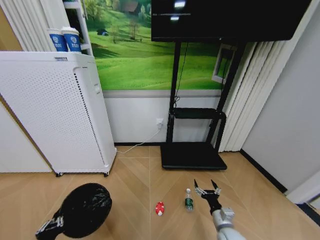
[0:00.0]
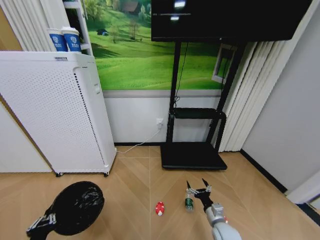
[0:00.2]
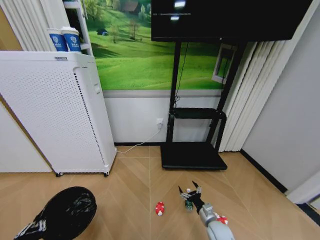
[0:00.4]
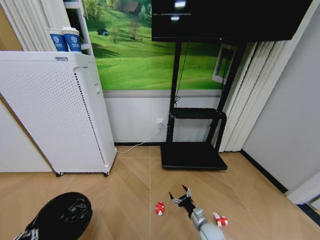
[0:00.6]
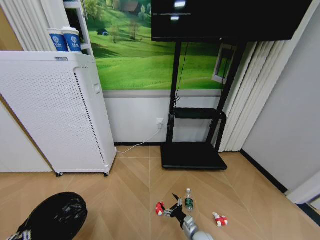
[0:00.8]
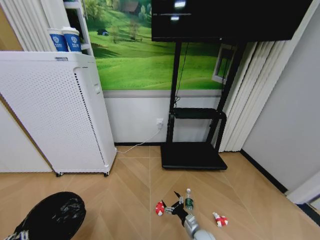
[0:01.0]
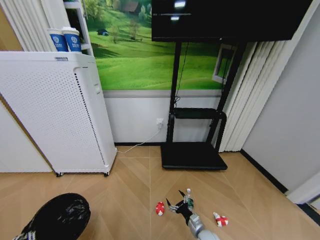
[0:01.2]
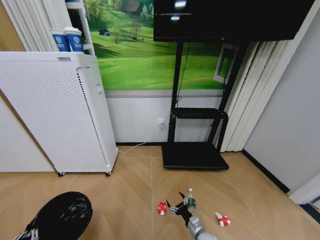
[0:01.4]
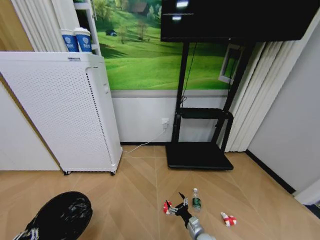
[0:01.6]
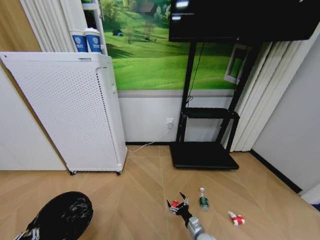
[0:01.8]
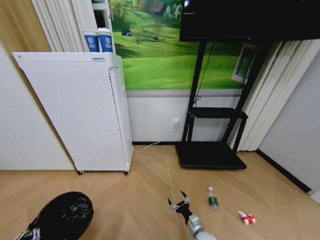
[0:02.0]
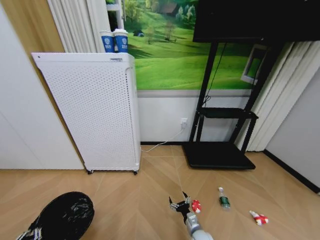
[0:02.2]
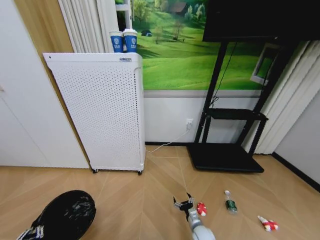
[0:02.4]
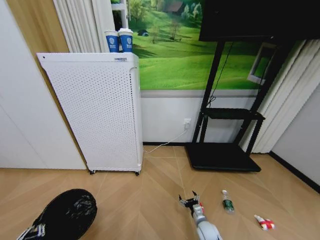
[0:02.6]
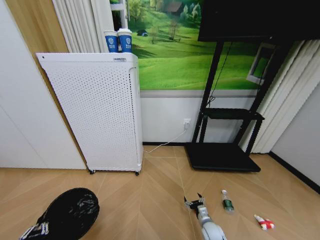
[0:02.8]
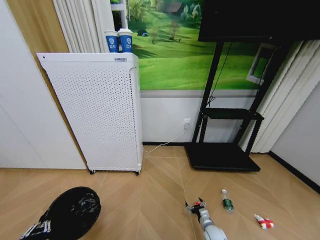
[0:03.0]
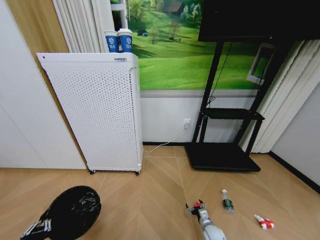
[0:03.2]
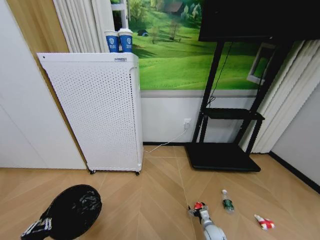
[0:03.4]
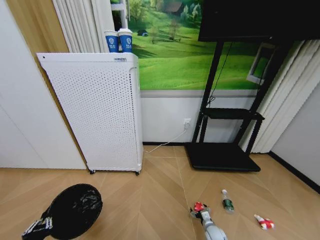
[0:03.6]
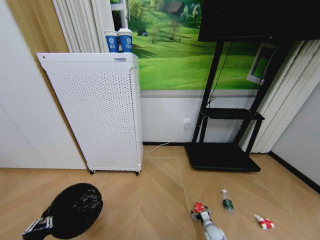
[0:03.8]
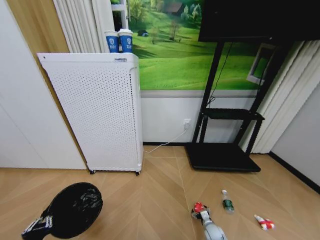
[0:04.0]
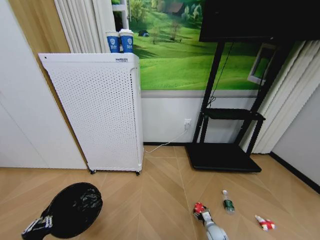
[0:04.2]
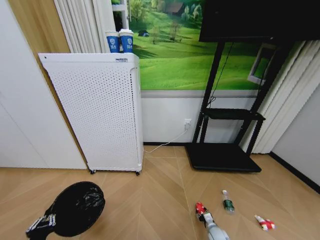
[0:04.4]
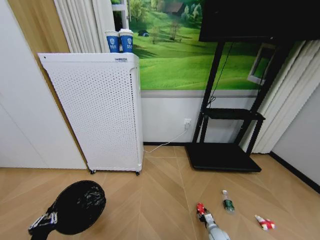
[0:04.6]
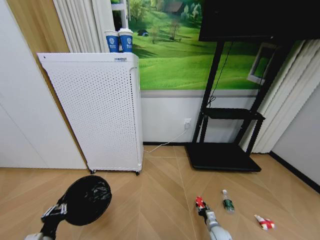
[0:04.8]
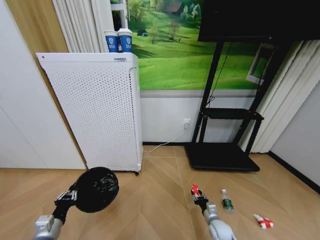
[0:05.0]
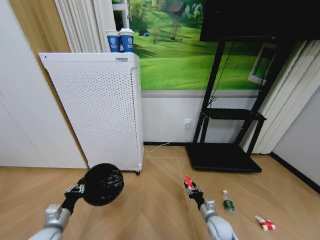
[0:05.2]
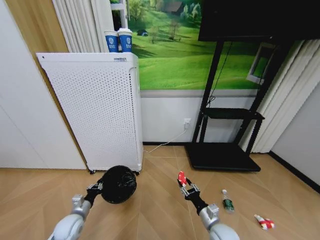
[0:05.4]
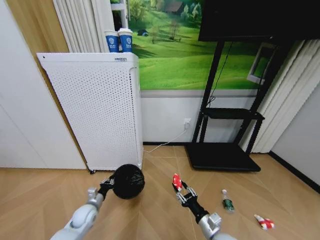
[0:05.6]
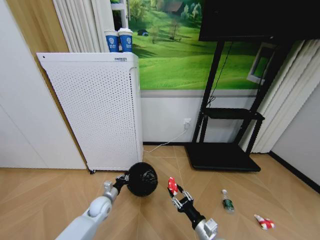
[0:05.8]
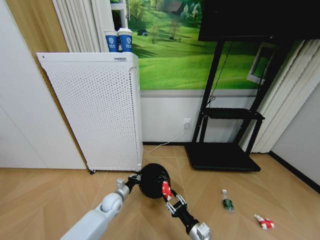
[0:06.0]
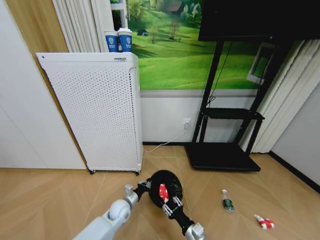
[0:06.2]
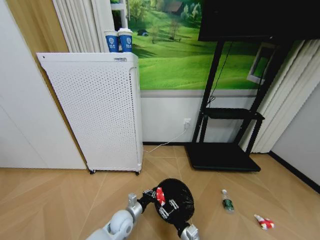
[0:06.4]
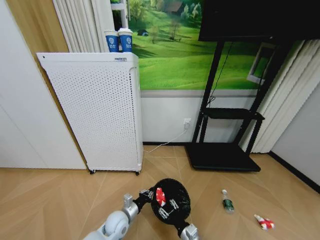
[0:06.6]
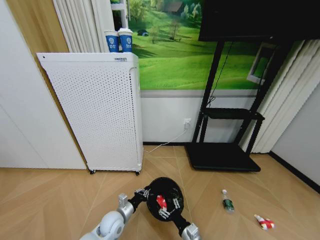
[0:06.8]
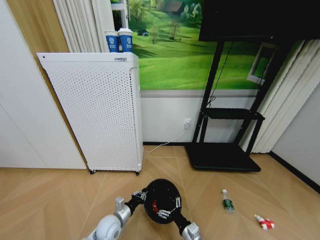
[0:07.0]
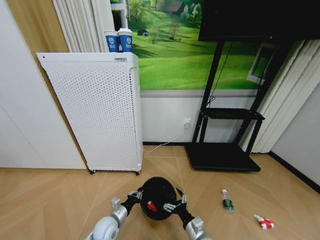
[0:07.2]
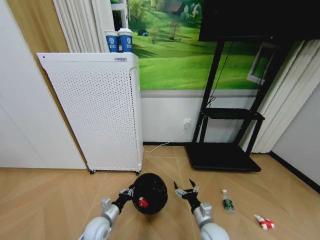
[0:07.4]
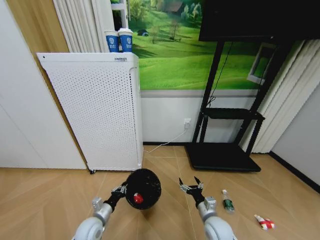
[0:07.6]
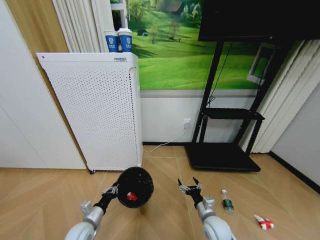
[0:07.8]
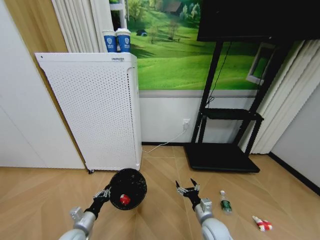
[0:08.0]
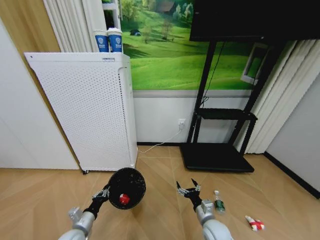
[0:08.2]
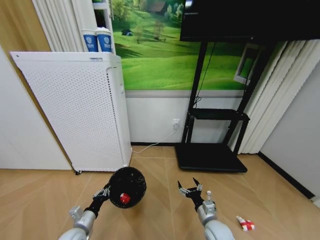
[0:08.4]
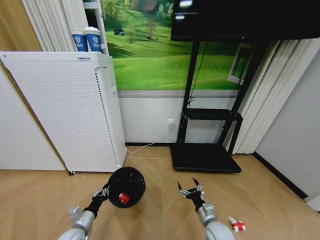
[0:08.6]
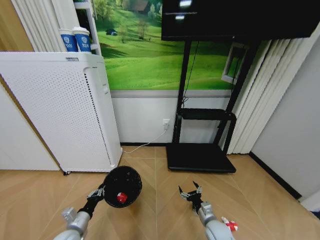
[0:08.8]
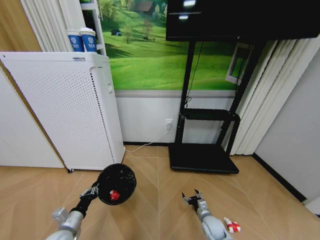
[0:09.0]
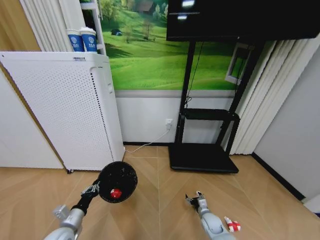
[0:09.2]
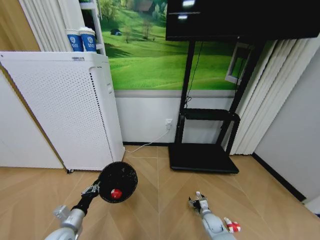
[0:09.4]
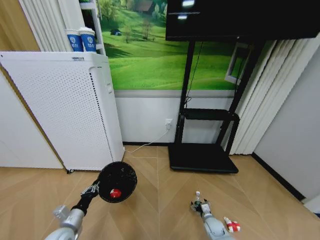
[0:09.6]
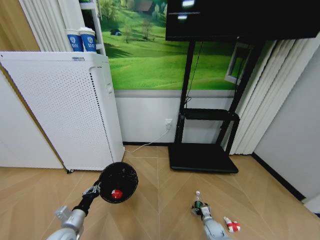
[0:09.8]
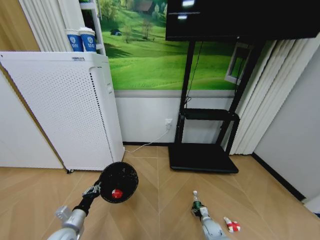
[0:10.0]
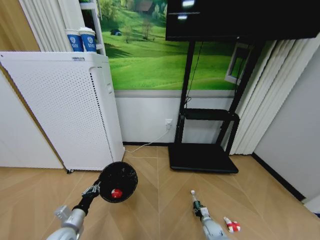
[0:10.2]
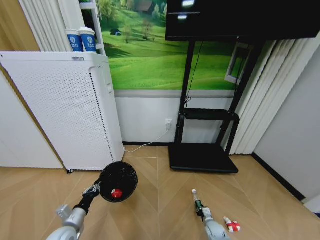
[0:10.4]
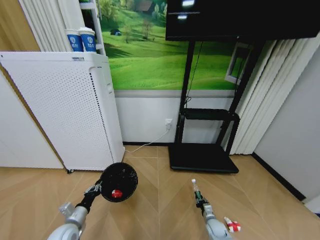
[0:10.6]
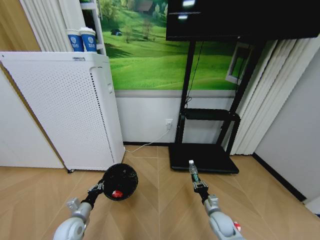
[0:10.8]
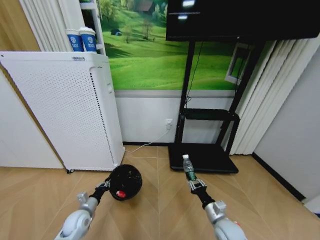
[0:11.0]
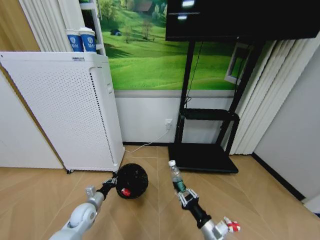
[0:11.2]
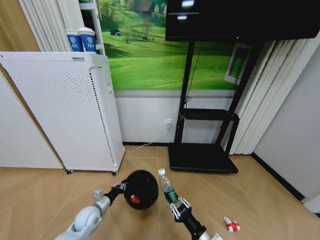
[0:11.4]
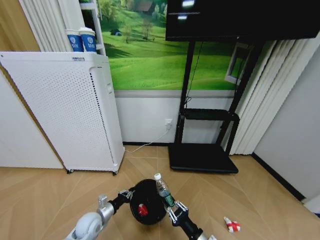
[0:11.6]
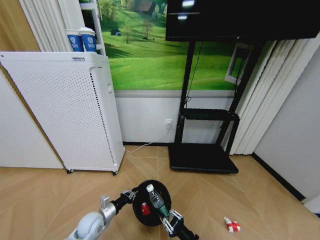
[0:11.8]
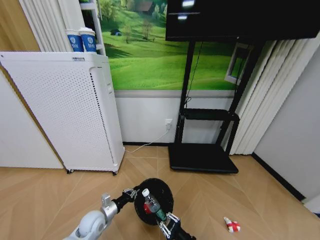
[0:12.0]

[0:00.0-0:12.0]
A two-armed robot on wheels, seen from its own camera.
Task of the whole recording: Pick up the trash bin and place the garbage on the floor into it.
0:00.0 to 0:01.6: The right gripper moves downward and to the left, approximately 10 cm. Meanwhile the left gripper moves to the left, about 5 cm.
0:01.6 to 0:03.0: The right gripper is displaced to the right by about 5 cm.
0:03.0 to 0:04.4: The right gripper travels downward by roughly 5 cm, and closes.
0:04.4 to 0:06.0: The right gripper travels upward, to the left and backward by approximately 25 cm, while the left gripper moves forward and to the right, some 35 cm.
0:06.0 to 0:07.6: The left gripper moves backward and to the left, some 15 cm, while the right gripper shifts about 10 cm forward, and opens.
0:07.6 to 0:09.0: The right gripper travels downward by roughly 10 cm. Meanwhile the left gripper heads to the left, covering about 10 cm.
0:09.0 to 0:10.4: The right gripper is displaced downward and to the right by approximately 10 cm, and closes up.
0:10.4 to 0:12.0: The left gripper goes some 10 cm to the right and forward. The right gripper shifts about 25 cm upward, backward and to the left.

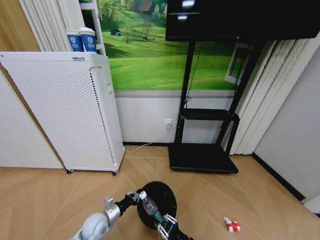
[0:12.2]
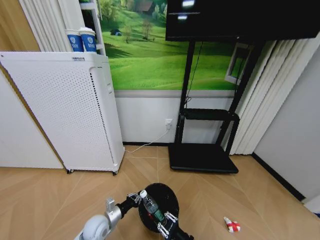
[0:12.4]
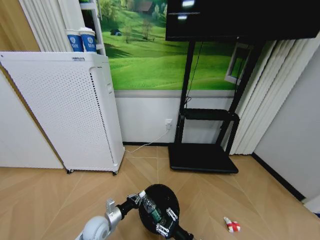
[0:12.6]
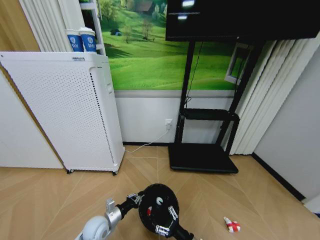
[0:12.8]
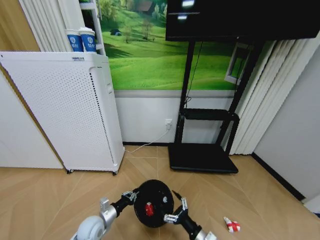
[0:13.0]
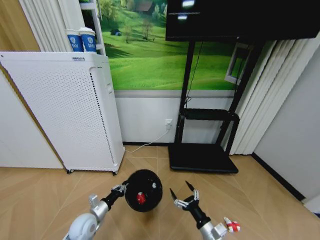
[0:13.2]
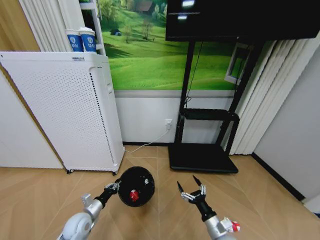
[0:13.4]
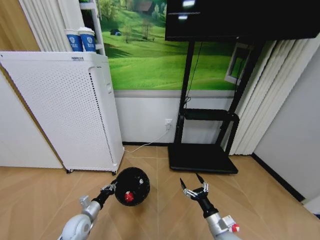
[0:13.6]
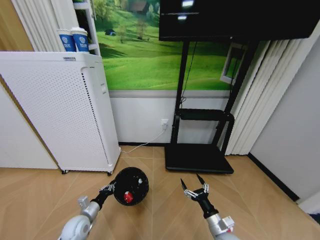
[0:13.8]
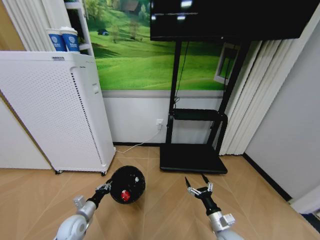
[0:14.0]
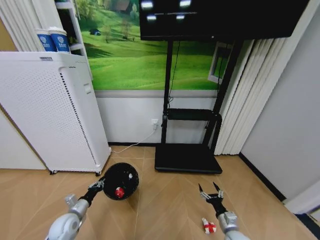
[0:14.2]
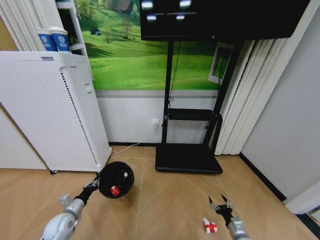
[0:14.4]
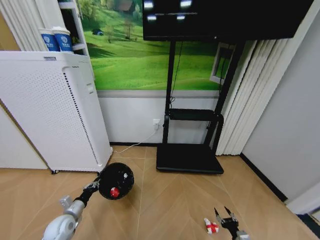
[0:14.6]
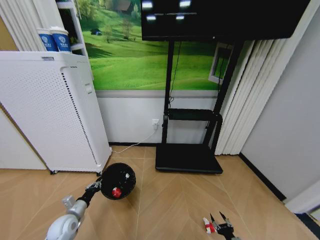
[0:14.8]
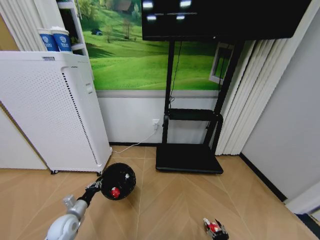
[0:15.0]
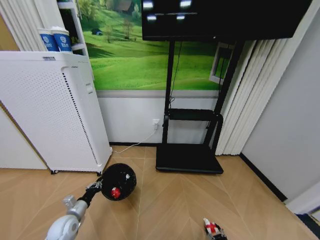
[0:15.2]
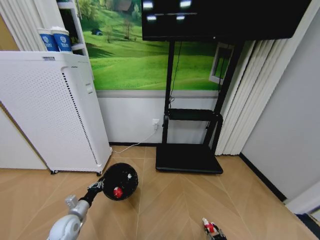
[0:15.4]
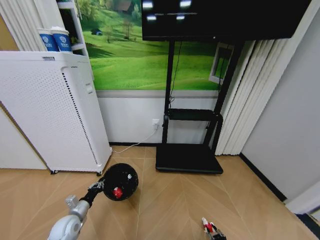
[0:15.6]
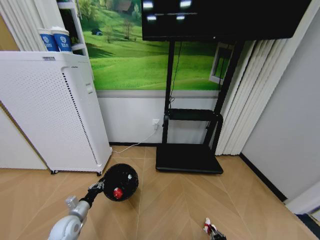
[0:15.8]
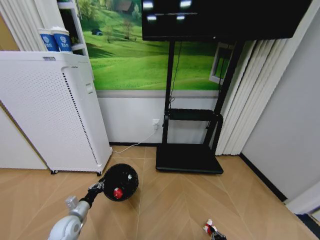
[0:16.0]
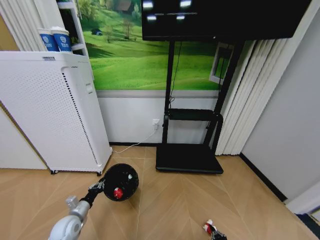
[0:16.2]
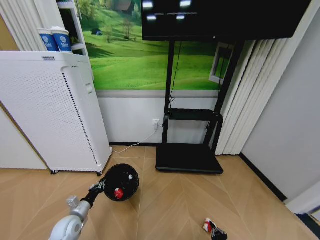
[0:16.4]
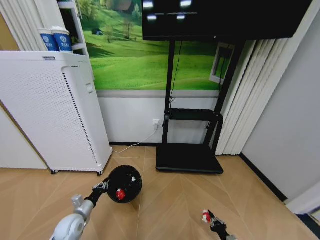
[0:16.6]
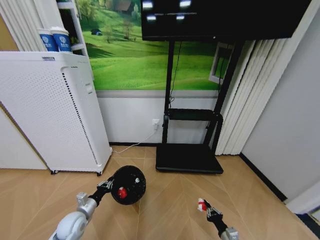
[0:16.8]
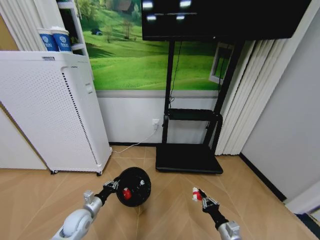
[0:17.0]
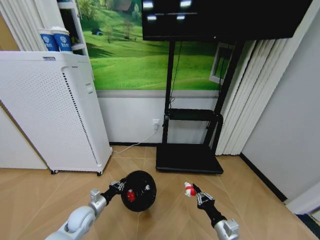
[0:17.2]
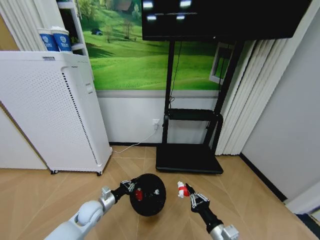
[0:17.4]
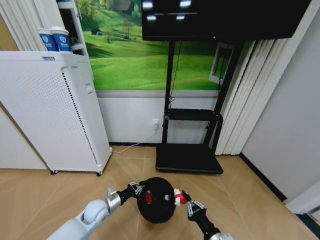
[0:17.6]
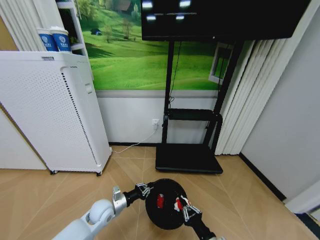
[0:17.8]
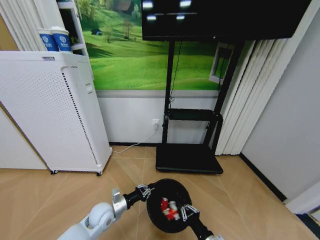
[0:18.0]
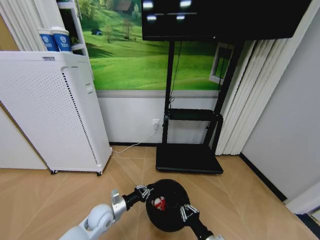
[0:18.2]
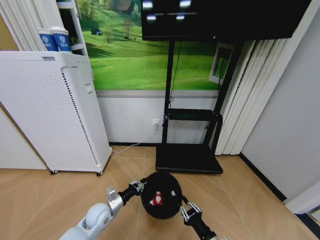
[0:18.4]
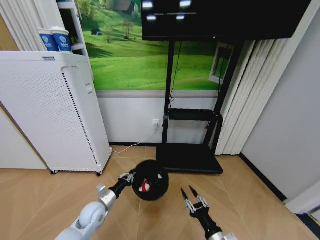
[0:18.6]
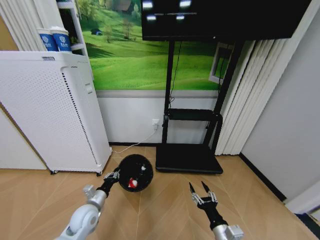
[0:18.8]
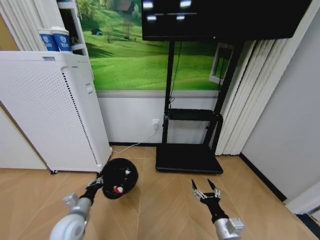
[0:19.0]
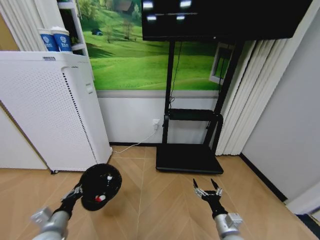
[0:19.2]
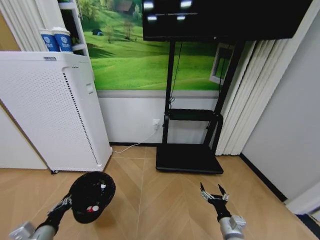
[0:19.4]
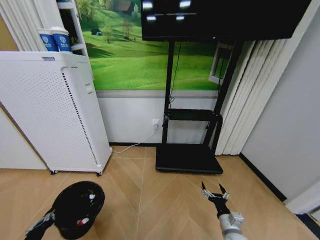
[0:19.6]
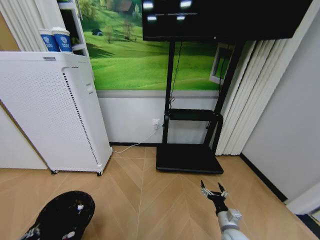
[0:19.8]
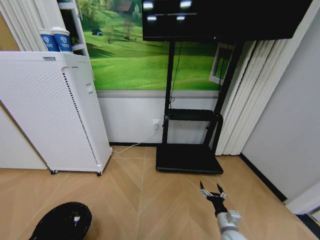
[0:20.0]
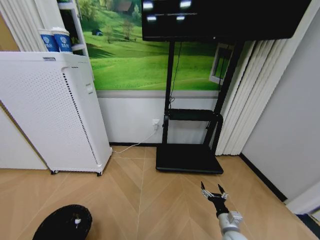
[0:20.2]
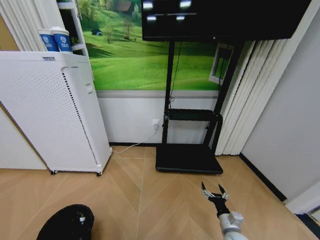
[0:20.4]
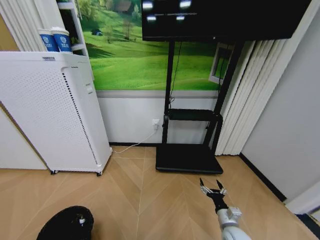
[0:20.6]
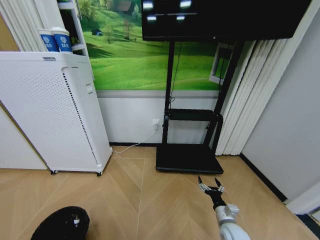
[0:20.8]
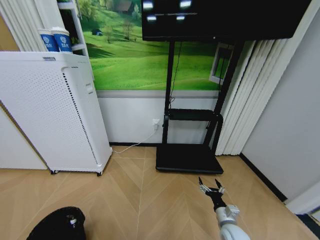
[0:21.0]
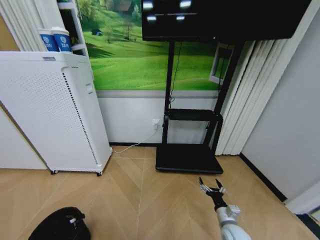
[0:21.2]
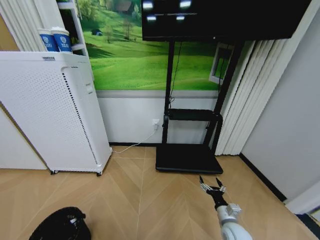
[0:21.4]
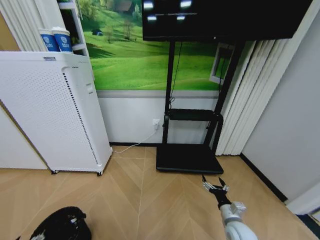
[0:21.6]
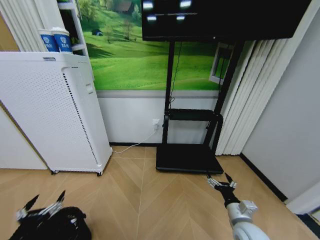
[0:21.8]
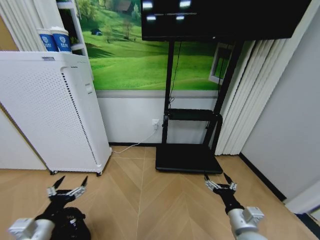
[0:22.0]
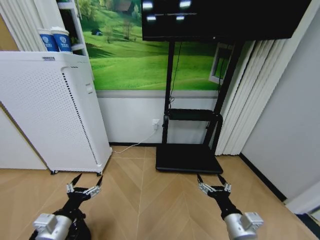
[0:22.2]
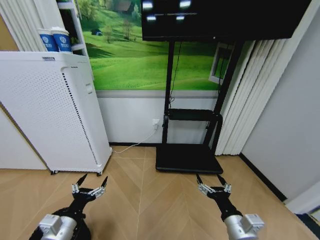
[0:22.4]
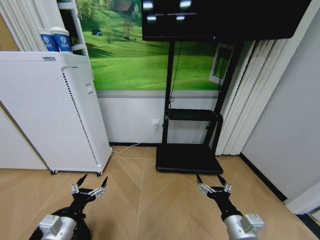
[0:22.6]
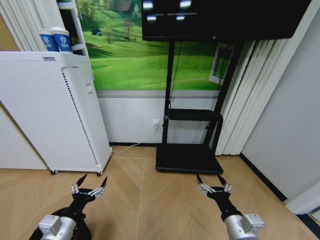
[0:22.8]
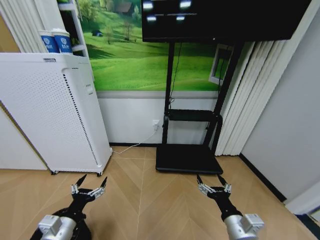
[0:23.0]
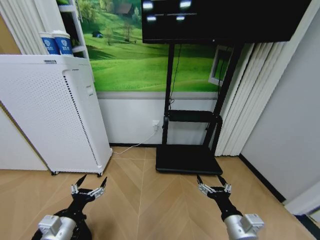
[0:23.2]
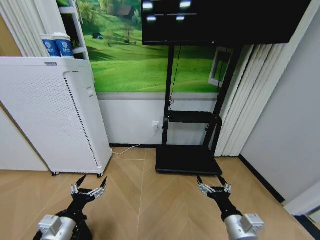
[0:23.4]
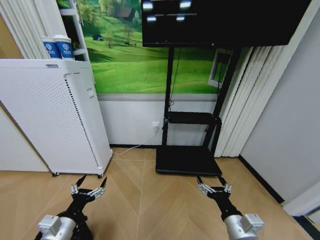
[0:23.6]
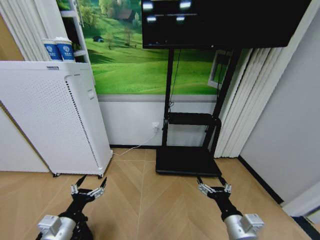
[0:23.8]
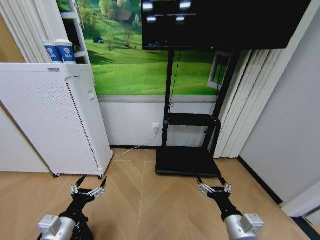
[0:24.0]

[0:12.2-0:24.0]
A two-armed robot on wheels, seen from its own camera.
Task of the whole recording: Pick up the trash bin and place the garbage on the floor into it.
0:12.2 to 0:13.6: The right gripper heads to the right and forward, covering roughly 10 cm, and opens its fingers. The left gripper goes roughly 10 cm to the left.
0:13.6 to 0:15.2: The right gripper goes about 25 cm downward and to the right.
0:15.2 to 0:16.6: The right gripper closes.
0:16.6 to 0:18.2: The left gripper goes roughly 15 cm to the right, while the right gripper heads upward and to the left, covering about 30 cm.
0:18.2 to 0:19.6: The right gripper heads to the right and forward, covering about 10 cm, and opens; the left gripper goes roughly 25 cm backward and to the left.
0:19.6 to 0:21.0: The left gripper heads downward and backward, covering approximately 10 cm.
0:21.0 to 0:22.6: The right gripper travels upward and backward by roughly 15 cm; the left gripper goes approximately 25 cm to the right, upward and forward, and opens its fingers.
0:22.6 to 0:24.0: The two grippers keep their place.
